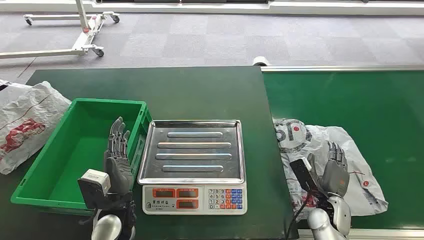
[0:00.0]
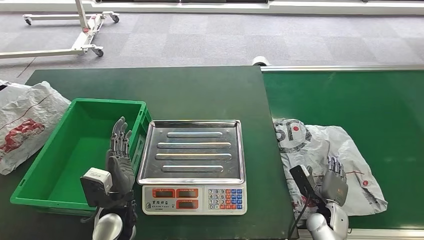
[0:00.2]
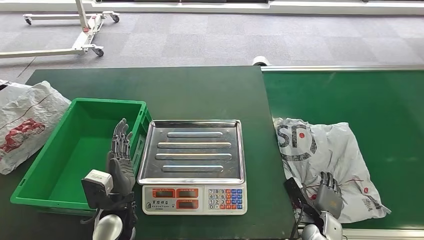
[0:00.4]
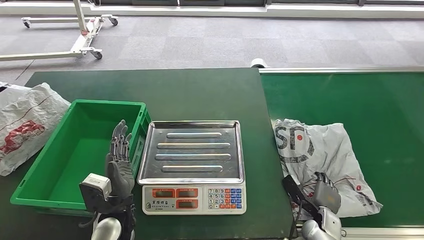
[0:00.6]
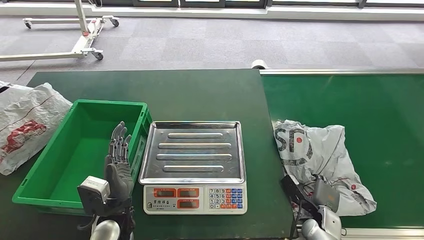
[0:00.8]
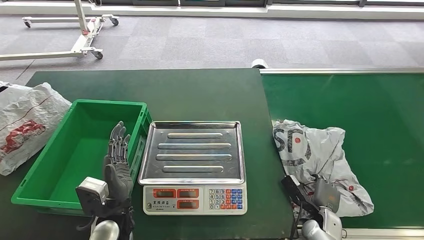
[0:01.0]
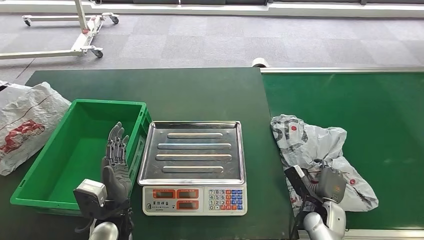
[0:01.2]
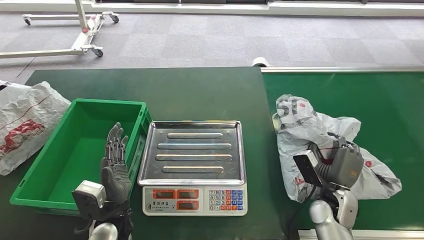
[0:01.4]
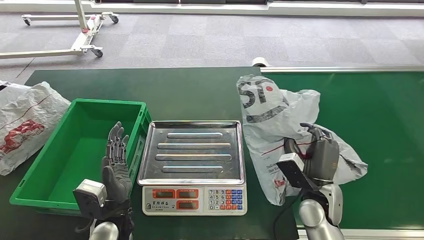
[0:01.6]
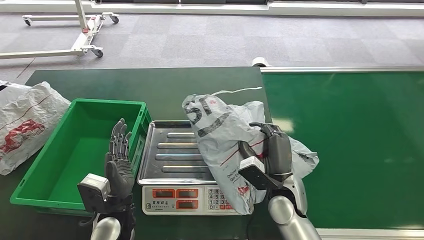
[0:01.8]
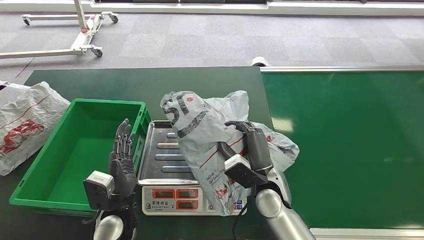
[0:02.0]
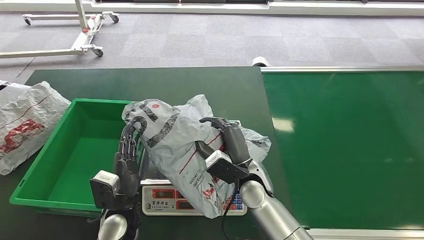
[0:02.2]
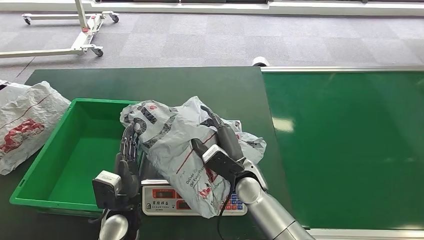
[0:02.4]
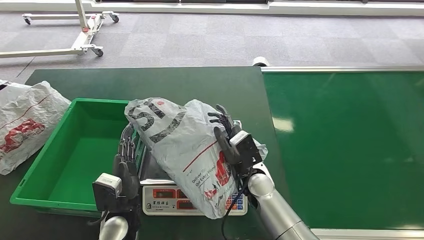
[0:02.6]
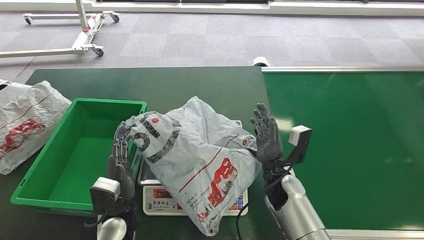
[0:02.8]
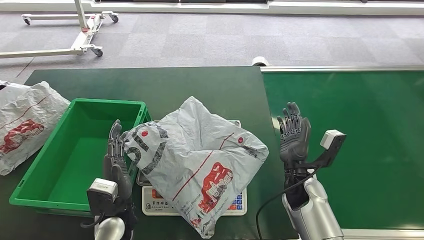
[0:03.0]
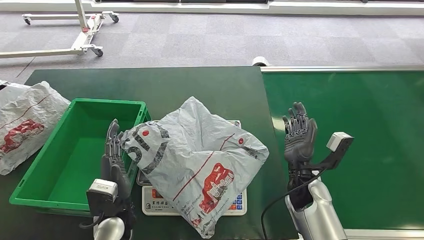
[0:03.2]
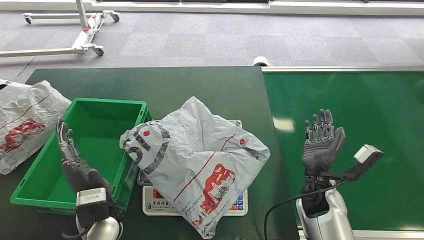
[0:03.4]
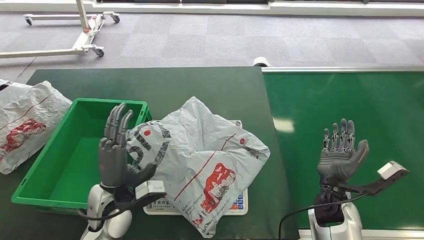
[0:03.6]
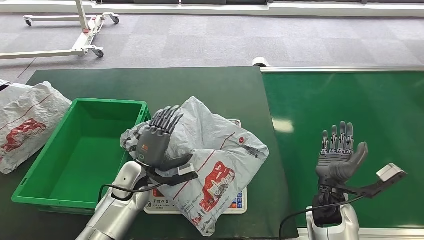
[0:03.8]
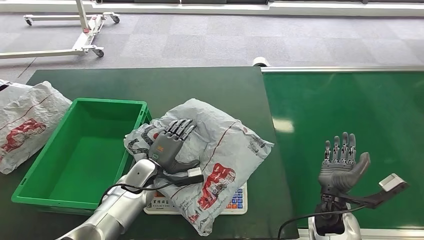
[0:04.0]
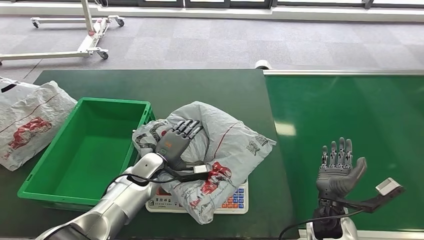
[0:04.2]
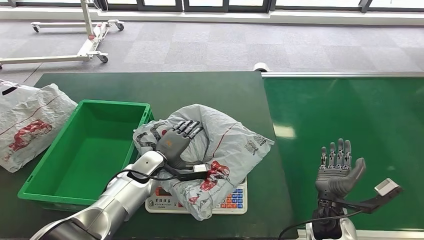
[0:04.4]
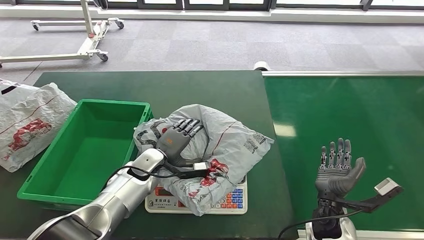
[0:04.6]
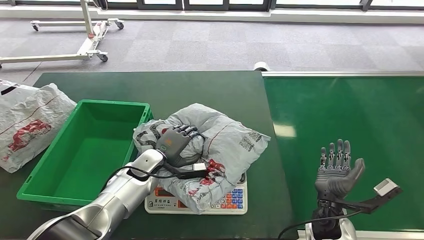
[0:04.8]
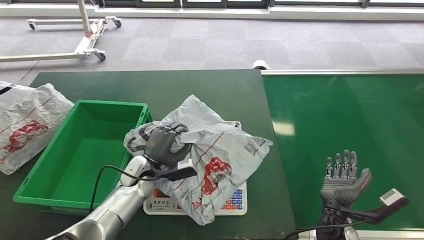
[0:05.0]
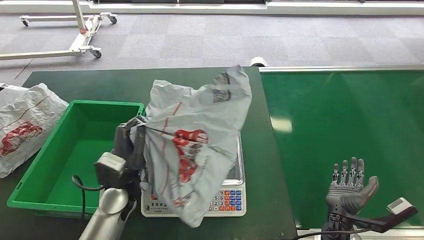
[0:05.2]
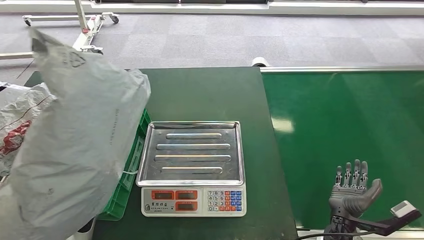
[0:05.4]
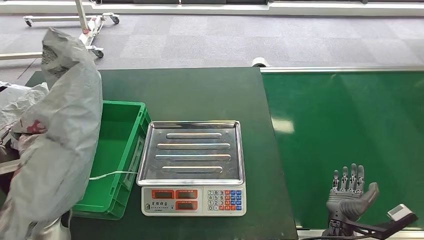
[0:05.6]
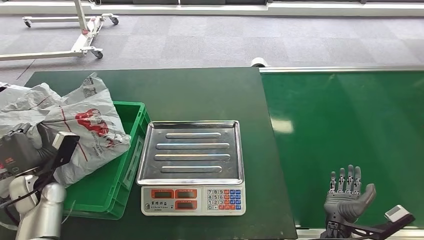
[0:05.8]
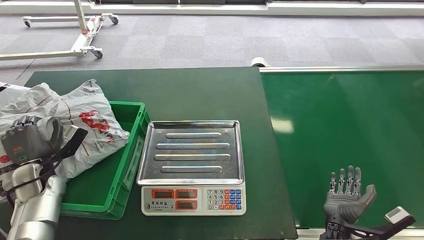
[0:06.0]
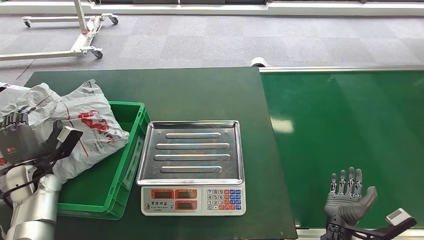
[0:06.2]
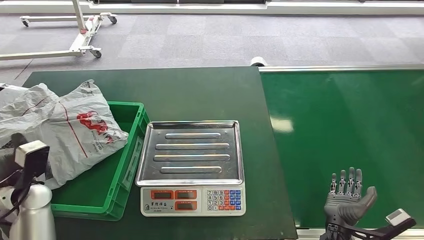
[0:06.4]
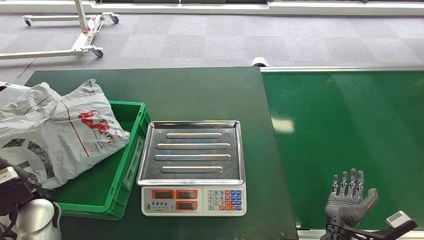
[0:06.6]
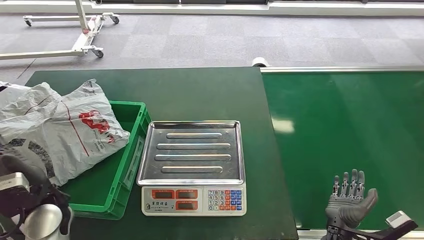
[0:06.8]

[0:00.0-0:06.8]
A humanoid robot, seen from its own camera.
Step, 0:00.0 to 0:01.6: Pick up the package from the conveyor belt.
Step, 0:01.8 to 0:02.8: Place the package onto the inbound machine.
Step, 0:03.0 to 0:05.0: Pick up the package from the inbound machine.
Step, 0:05.2 to 0:06.8: Place the package into the parcel locker.
